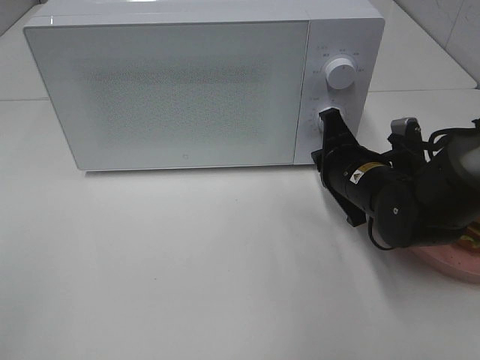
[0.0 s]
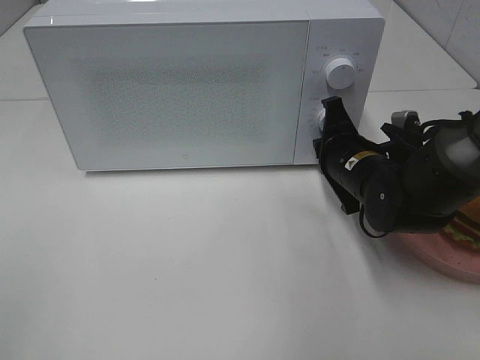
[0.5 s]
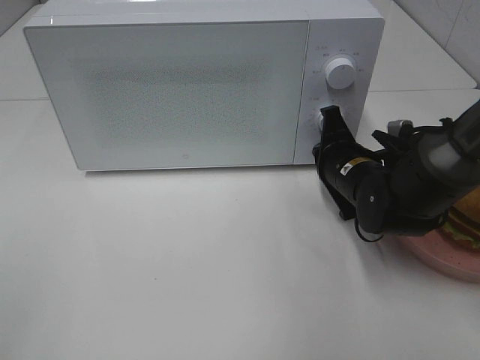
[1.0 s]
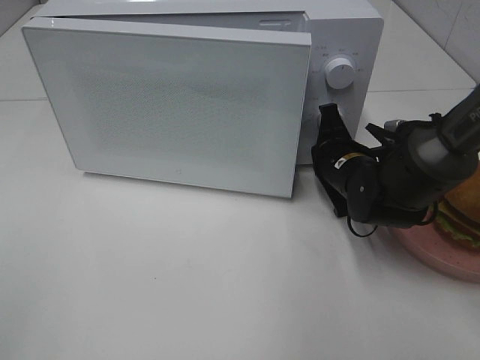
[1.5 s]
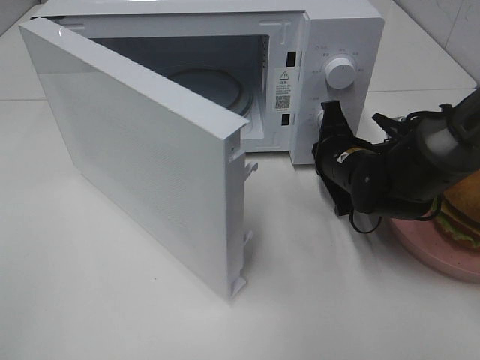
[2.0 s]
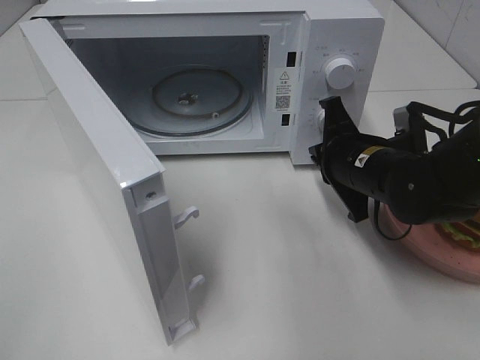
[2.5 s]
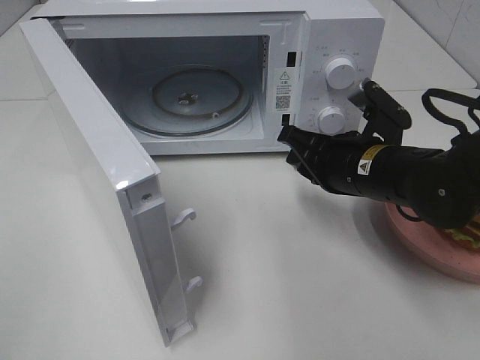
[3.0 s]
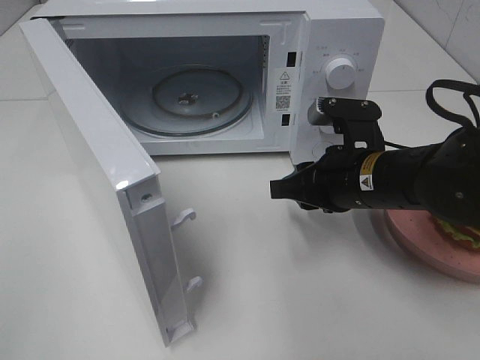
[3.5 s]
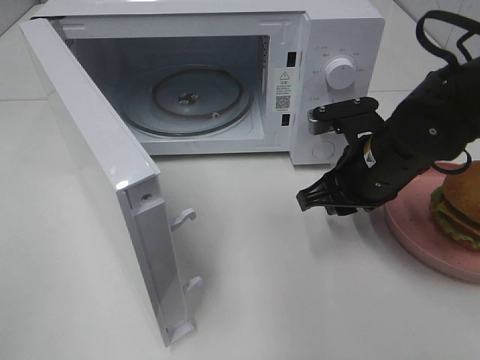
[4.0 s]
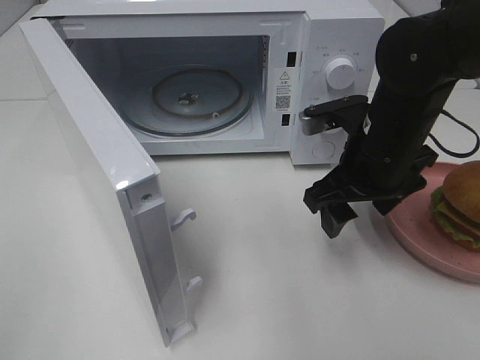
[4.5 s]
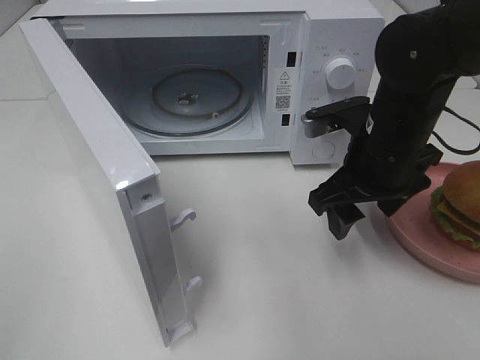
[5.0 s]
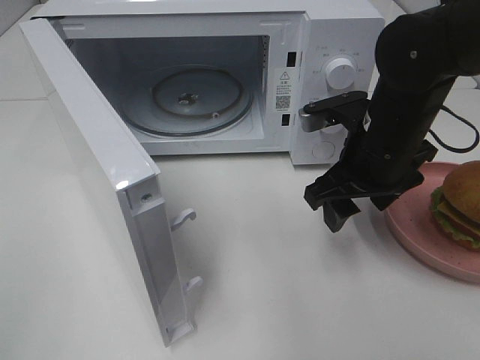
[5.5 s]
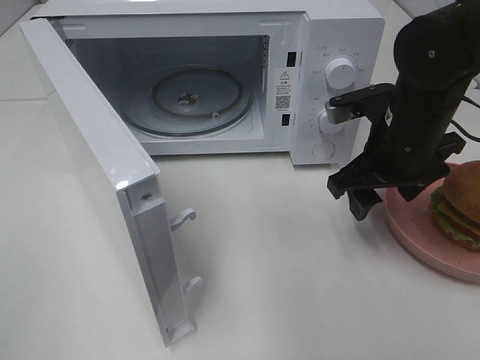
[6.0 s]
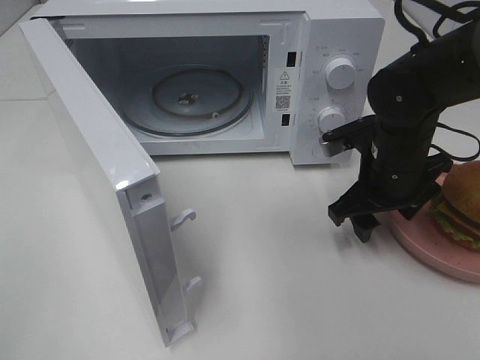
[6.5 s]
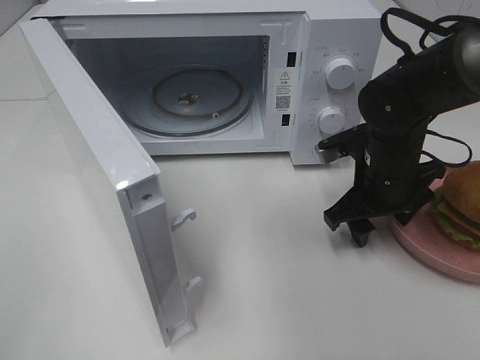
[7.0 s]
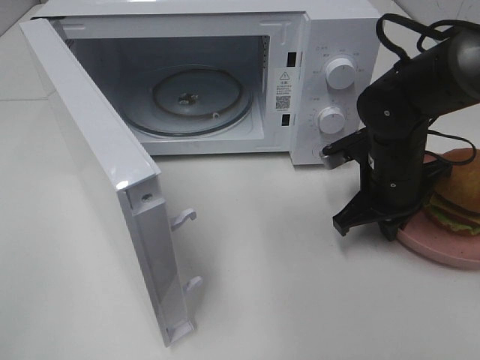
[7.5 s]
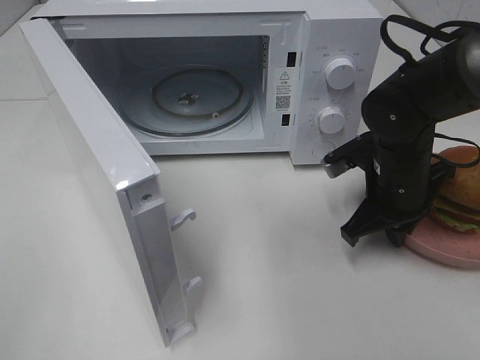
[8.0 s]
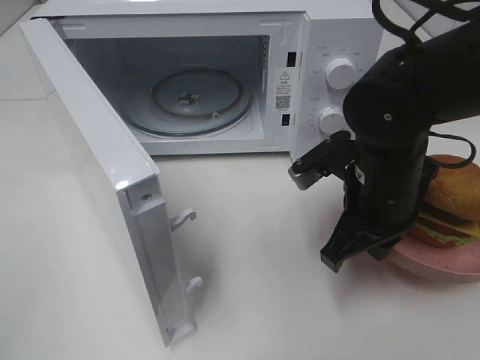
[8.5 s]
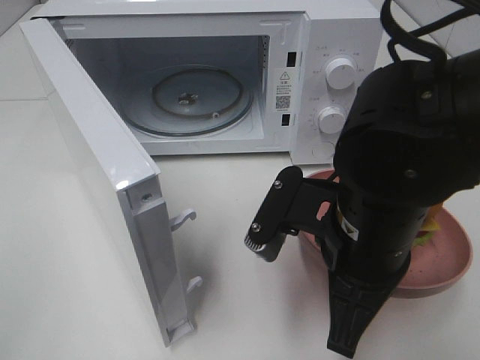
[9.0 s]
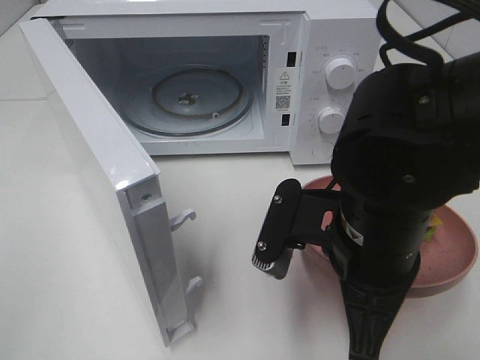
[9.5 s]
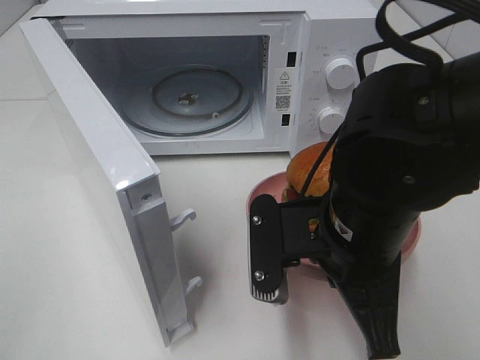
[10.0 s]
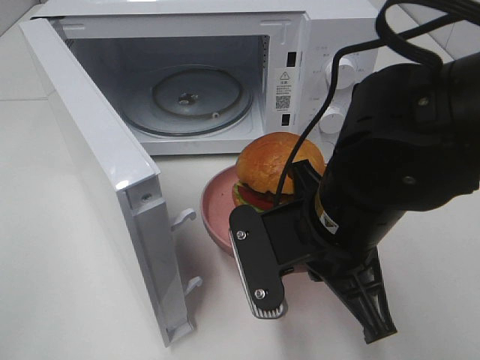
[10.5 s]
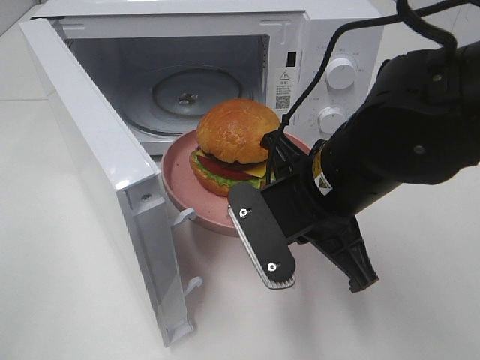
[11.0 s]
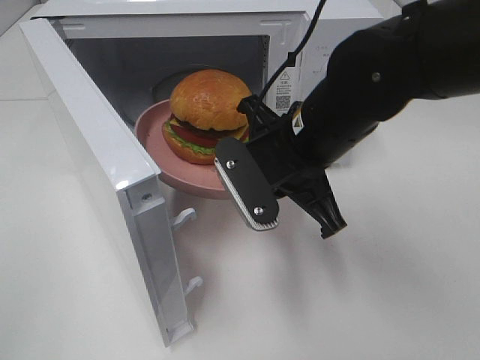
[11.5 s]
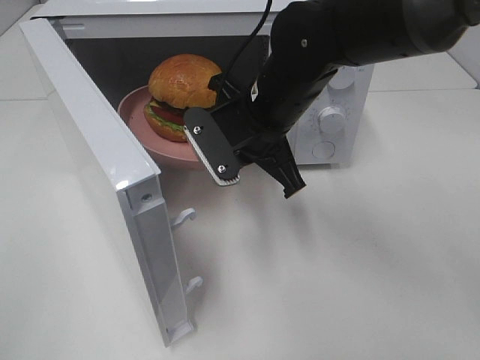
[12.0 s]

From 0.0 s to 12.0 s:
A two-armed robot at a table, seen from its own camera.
Task of the whole recording: Heat the burger.
Step, from 0.0 s to 2.0 s: Right hand: press the switch.
Step, from 2.5 s to 7.5 s: Right hand: grab the plate with the hamburger.
From 2.0 s to 4.0 s: The right gripper is displaced backward and upward by some 10 cm, and opens.
From 4.0 s to 6.0 s: The right gripper opens its fingers.
From 6.0 s to 8.0 s: The right gripper is displaced downward by approximately 5 cm, and closes its fingers.
From 8.0 s to 10.0 s: The right gripper moves backward, to the left and upward, approximately 15 cm.
From 10.0 s to 12.0 s: The right gripper goes approximately 15 cm forward and to the left.

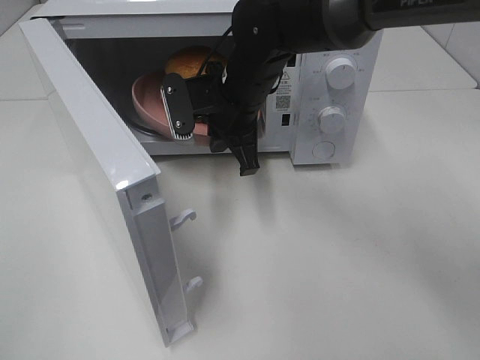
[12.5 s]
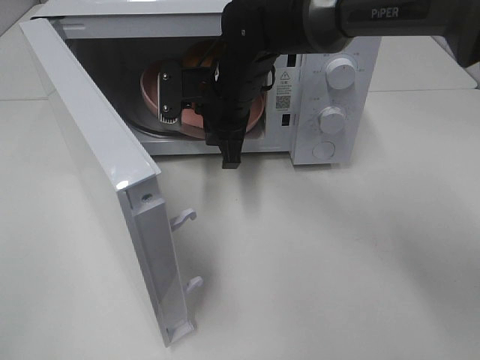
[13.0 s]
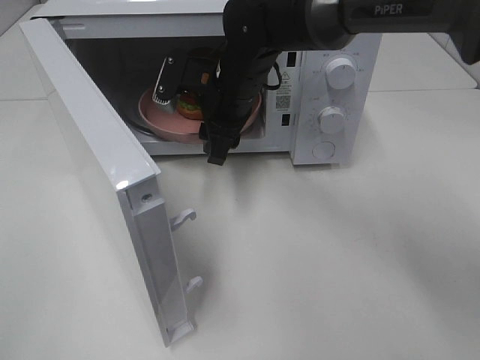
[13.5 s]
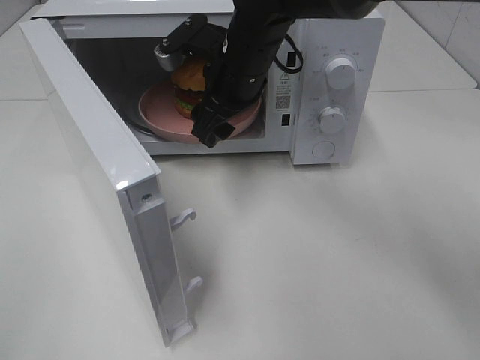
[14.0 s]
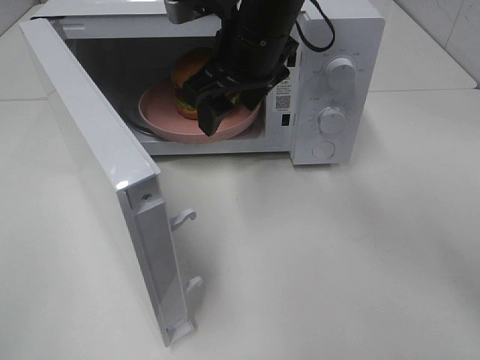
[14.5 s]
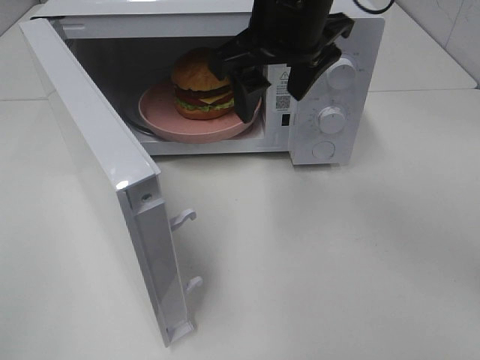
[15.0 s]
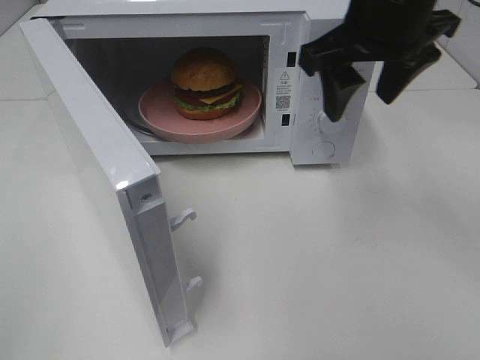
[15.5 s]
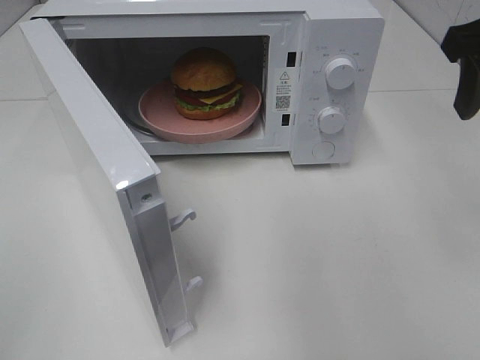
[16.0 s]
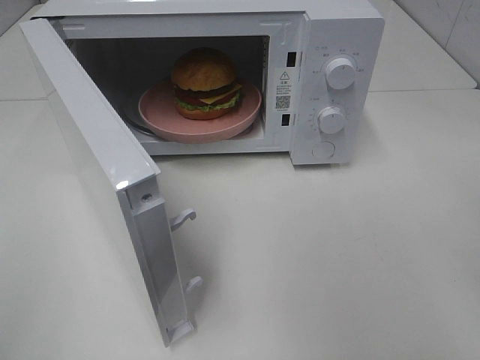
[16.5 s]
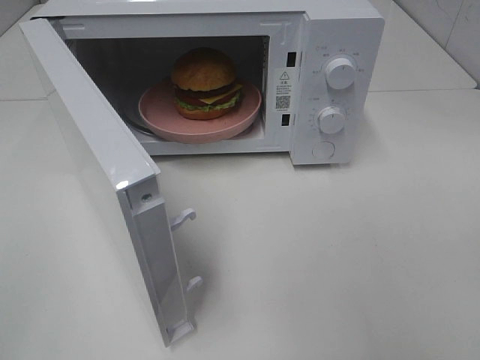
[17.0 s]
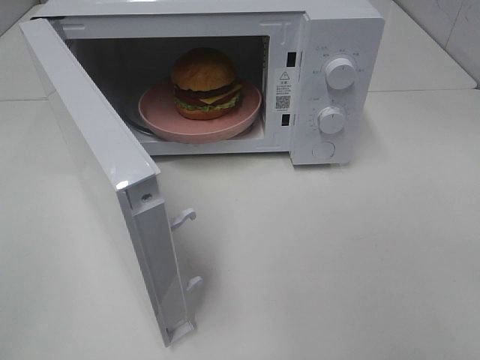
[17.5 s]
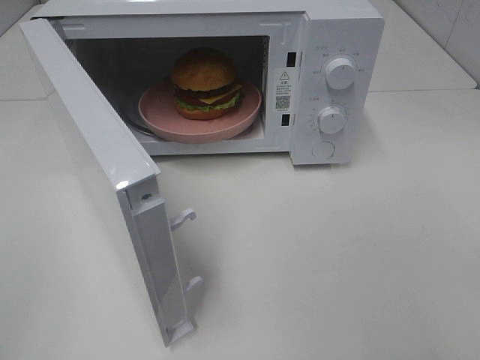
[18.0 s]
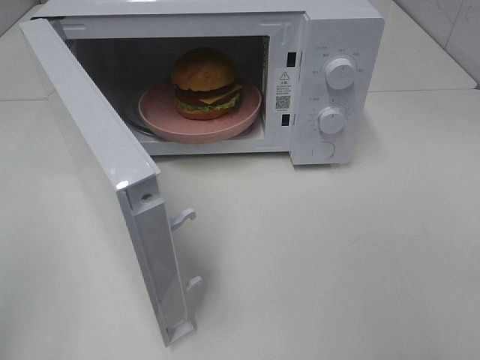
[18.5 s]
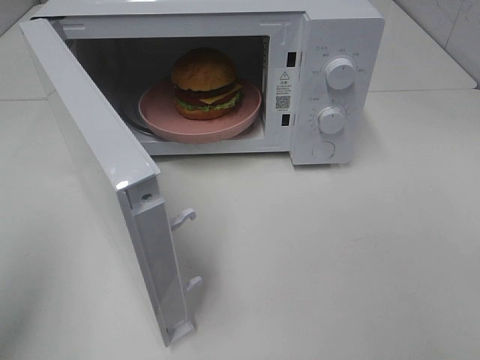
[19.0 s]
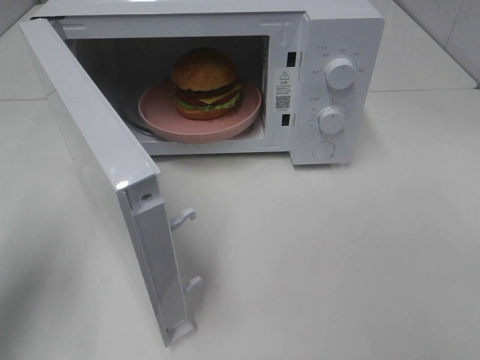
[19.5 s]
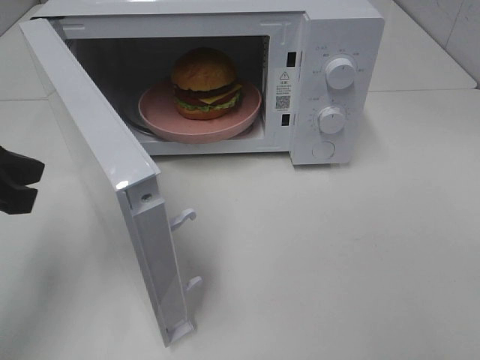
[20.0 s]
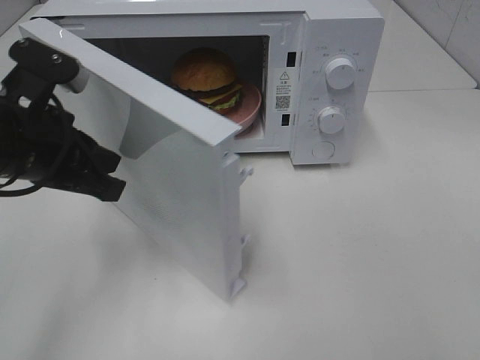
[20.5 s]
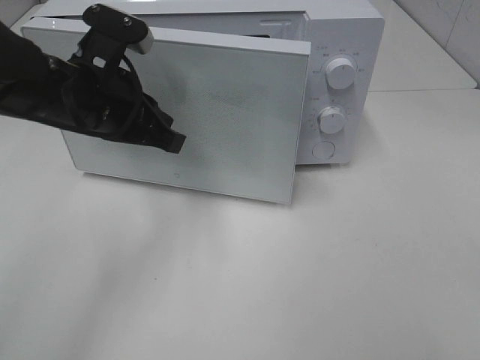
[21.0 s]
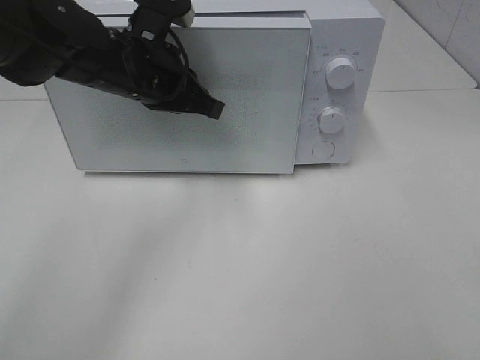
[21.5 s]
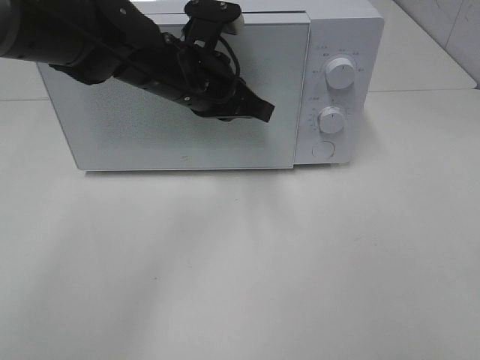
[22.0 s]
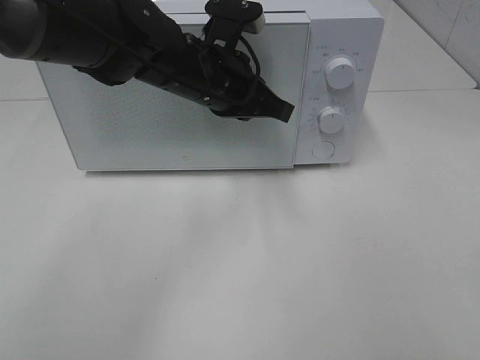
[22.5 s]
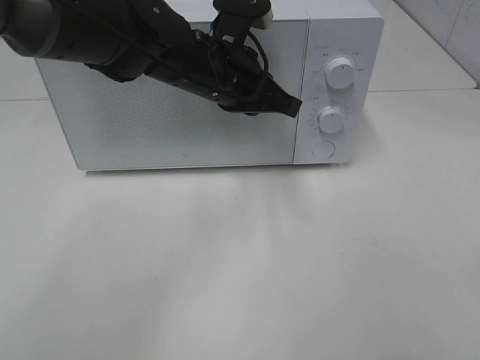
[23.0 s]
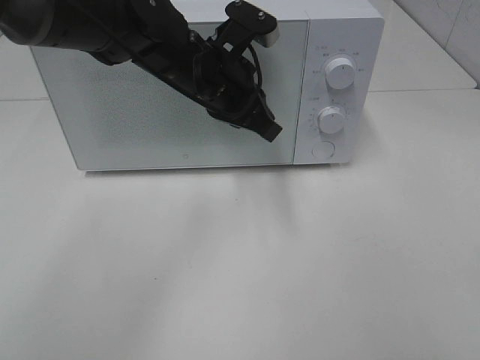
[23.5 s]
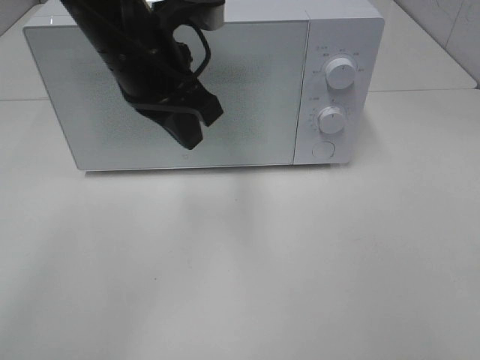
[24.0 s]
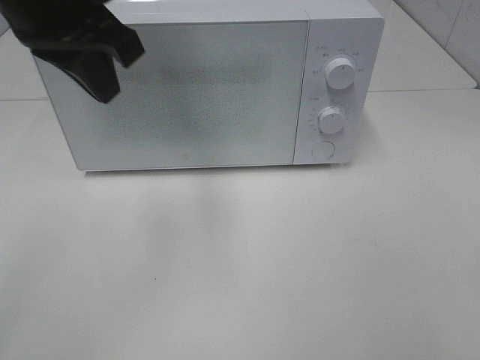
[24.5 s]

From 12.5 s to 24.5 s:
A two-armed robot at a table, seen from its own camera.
Task of the whole recording: Heat the burger.
Step, from 13.5 s to 23.0 s: Left hand: close the microwave door.
From 12.5 s to 14.5 s: The right gripper is displaced upward by approximately 10 cm, and opens.
From 14.5 s to 16.5 s: The right gripper travels to the right and backward by about 30 cm.
From 18.5 s to 20.5 s: The left gripper shifts roughly 30 cm forward, to the right and downward.
From 20.5 s to 22.5 s: The left gripper travels to the right and forward by some 20 cm.
From 22.5 s to 24.5 s: The left gripper moves upward, to the left and backward, about 20 cm.

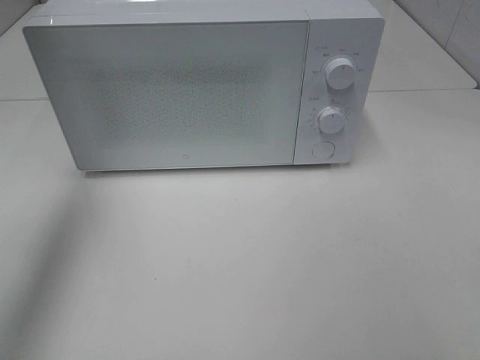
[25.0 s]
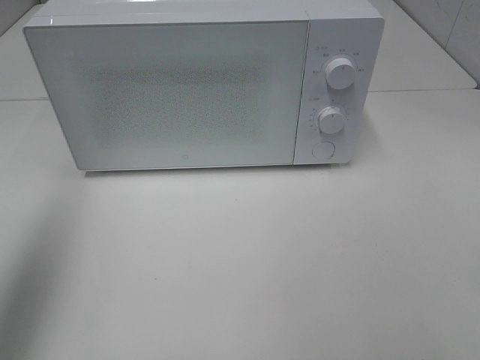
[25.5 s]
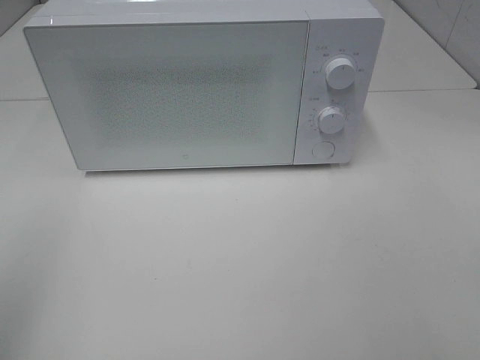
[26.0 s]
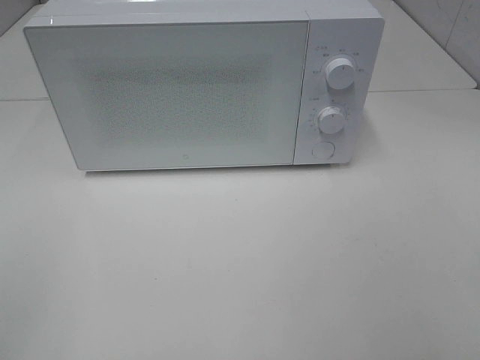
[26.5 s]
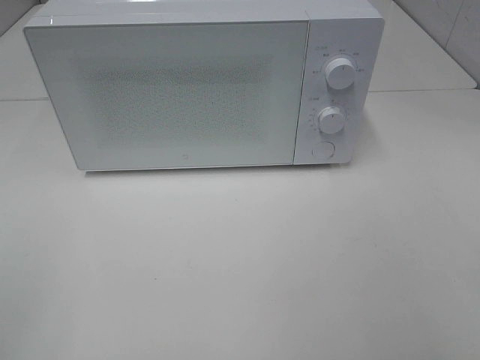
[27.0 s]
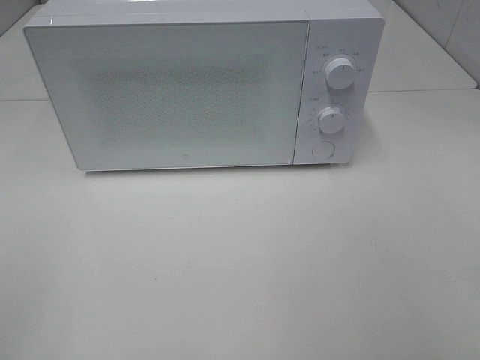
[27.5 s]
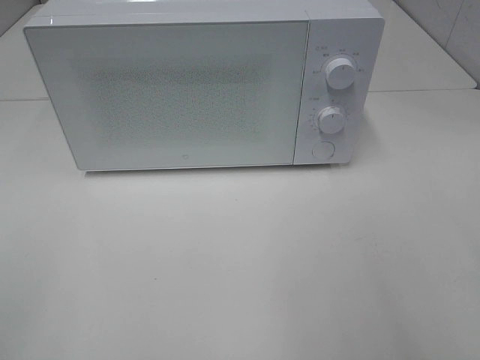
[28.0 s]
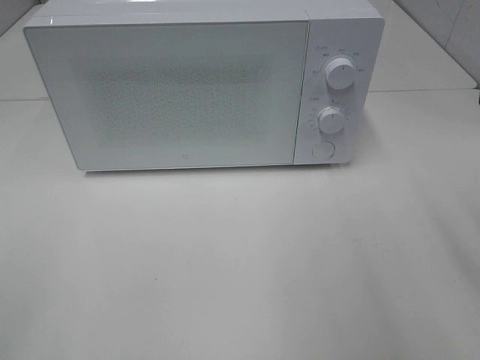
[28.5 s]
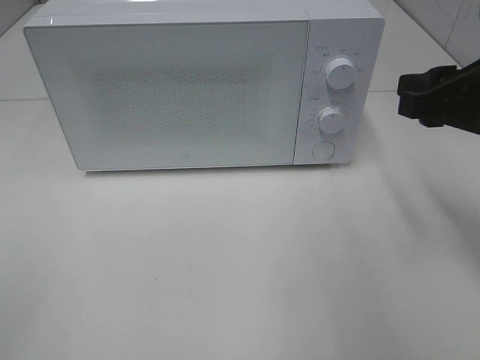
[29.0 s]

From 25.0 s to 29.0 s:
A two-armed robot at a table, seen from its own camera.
Task of the whole recording: Heat the burger.
From 25.0 s to 27.0 s: The left gripper is displaced backward and downward by roughly 30 cm.
From 27.0 s to 29.0 s: The right gripper goes about 25 cm forward.
